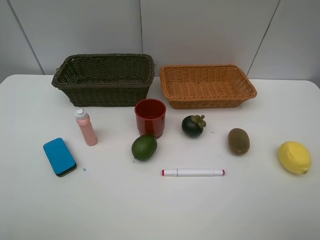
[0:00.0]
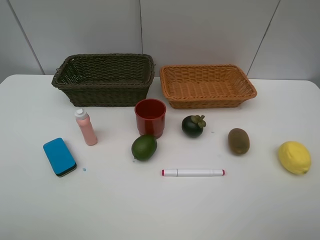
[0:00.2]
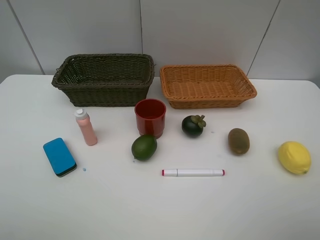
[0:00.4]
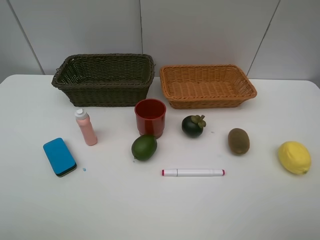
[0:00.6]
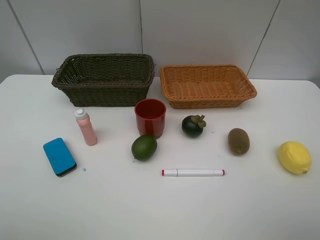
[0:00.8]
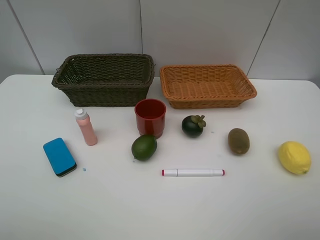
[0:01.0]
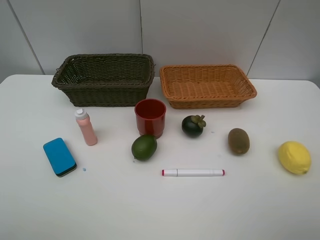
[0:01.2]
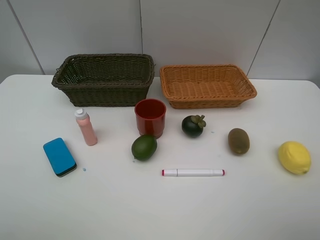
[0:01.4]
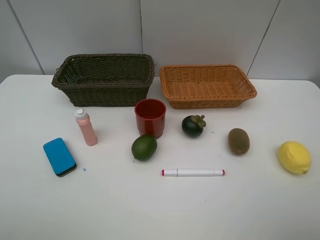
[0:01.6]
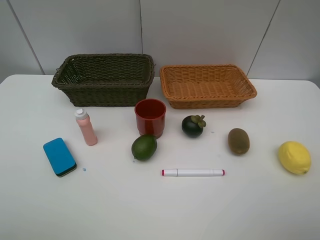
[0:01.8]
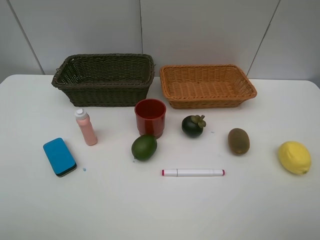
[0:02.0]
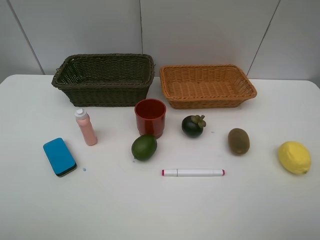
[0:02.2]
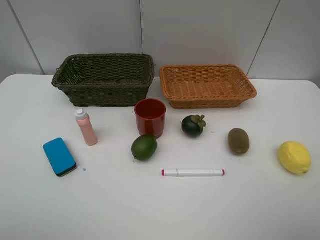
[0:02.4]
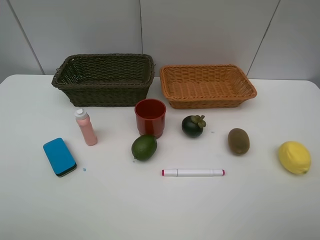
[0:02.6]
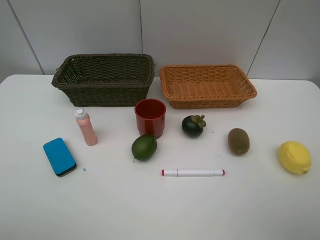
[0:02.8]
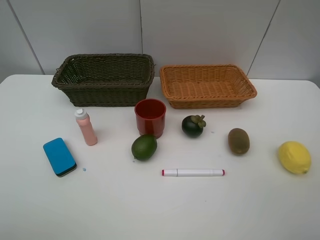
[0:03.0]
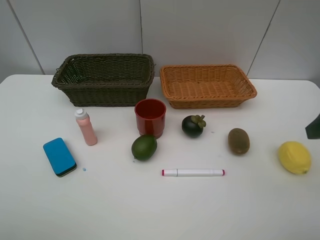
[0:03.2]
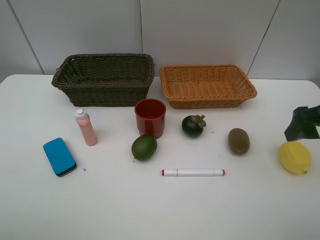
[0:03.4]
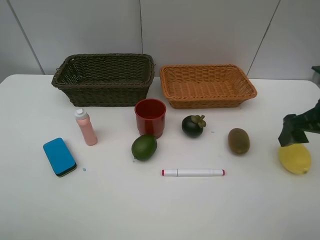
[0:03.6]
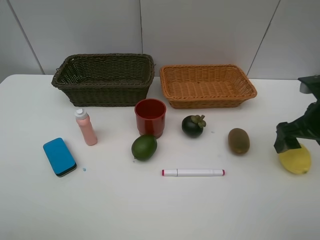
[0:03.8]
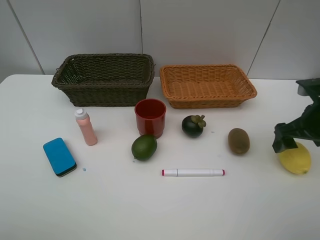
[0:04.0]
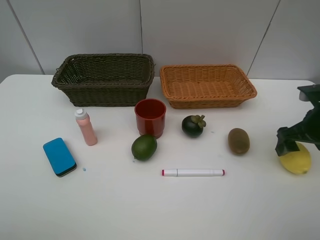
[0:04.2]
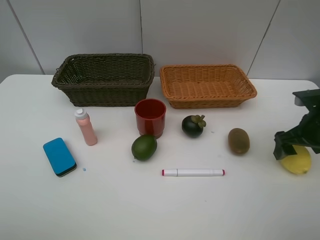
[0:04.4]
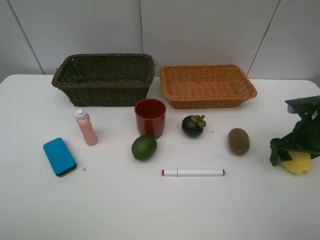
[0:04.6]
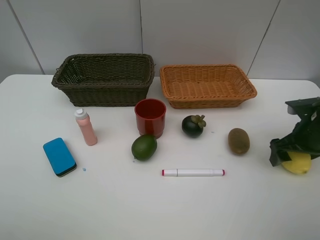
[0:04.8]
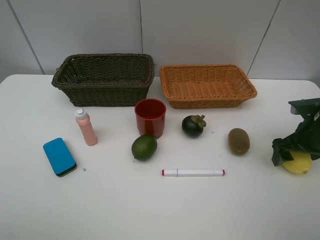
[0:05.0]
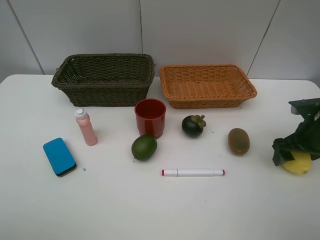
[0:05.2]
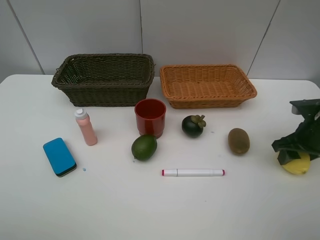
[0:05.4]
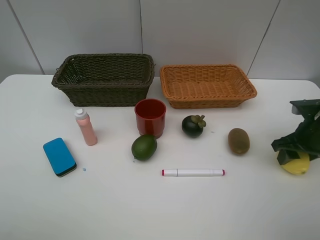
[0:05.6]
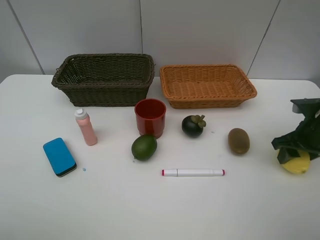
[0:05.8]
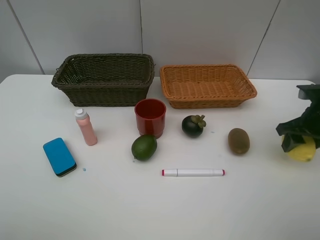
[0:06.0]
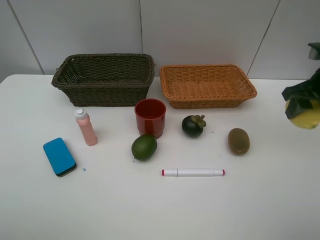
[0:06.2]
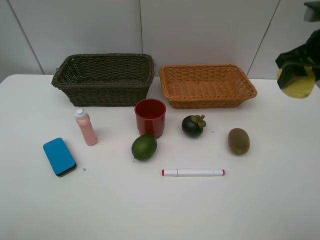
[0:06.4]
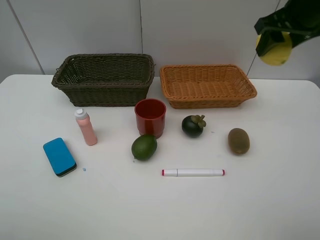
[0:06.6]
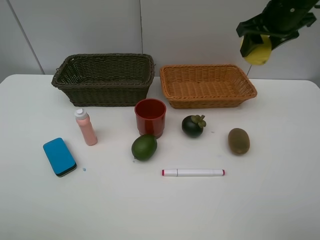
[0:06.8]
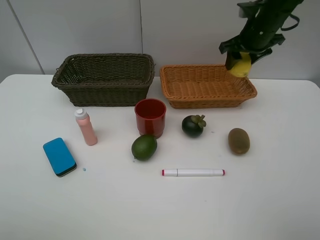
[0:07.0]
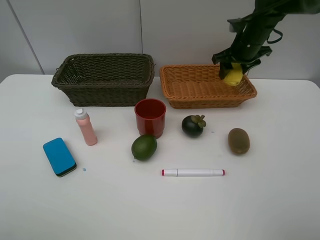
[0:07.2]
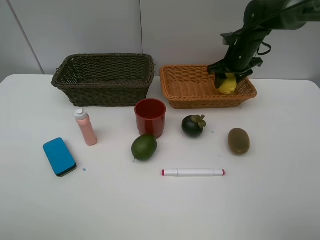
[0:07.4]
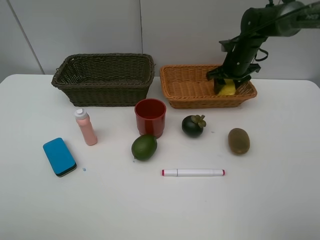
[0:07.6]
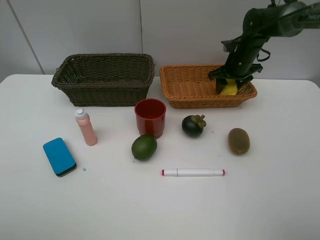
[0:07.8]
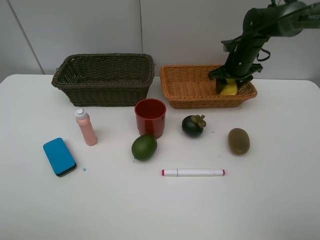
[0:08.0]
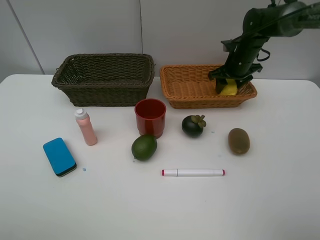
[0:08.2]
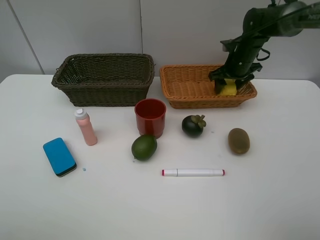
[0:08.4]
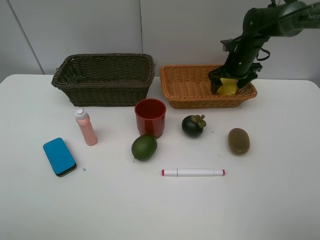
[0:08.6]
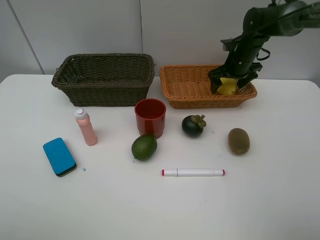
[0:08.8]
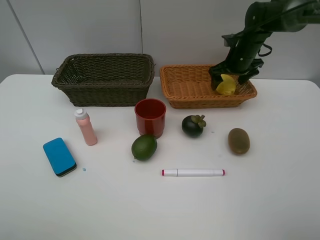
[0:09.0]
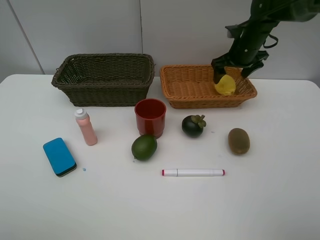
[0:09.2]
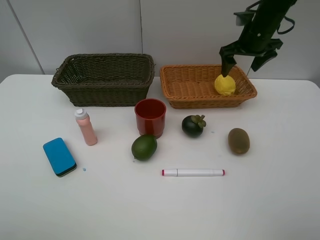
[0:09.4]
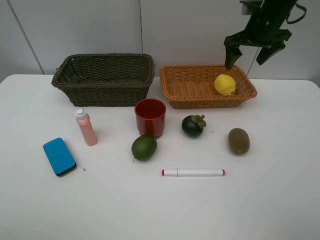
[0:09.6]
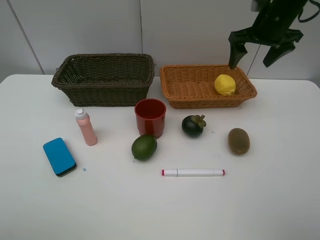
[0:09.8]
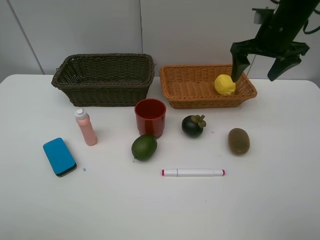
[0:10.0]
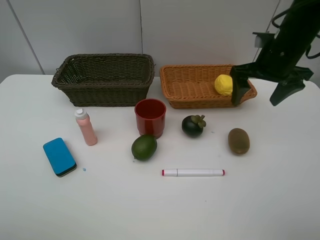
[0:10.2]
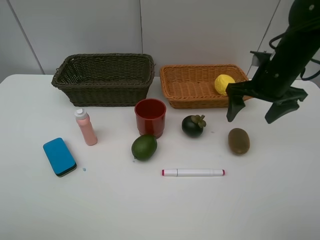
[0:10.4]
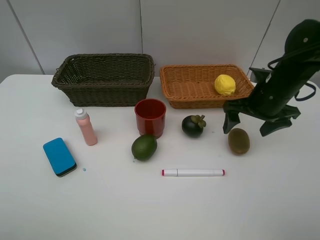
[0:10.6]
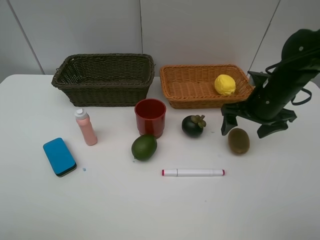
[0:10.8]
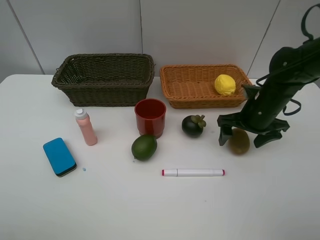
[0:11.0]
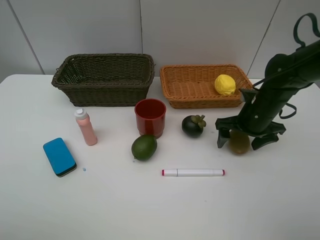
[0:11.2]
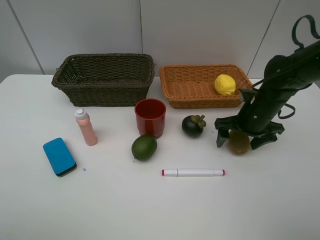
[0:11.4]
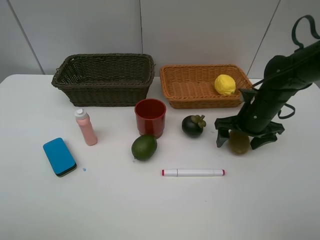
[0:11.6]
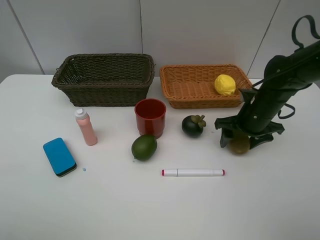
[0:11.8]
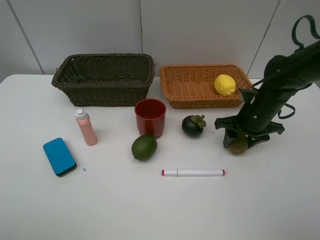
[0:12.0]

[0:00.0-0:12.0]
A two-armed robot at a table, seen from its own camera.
Task of the whole recording: Place multiple objects separately in different baskets.
Step, 0:00.0 to 0:06.0: Pick up the lemon with right gripper.
Step, 0:06.2 to 0:09.2: Place the lemon in the light basket with right gripper.
0:00.0 to 0:01.6: Both grippers stay about where they are.
0:03.0 to 0:04.4: The right gripper moves downward and forward, approximately 20 cm.
0:04.4 to 0:06.0: The right gripper closes.
0:06.0 to 0:07.6: The right gripper travels forward and to the left by roughly 25 cm.
0:07.6 to 0:09.0: The right gripper opens its fingers.
0:09.0 to 0:10.4: The right gripper heads backward, covering roughly 15 cm.
0:10.4 to 0:12.0: The right gripper travels downward by some 10 cm, and closes up.

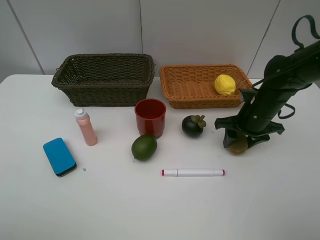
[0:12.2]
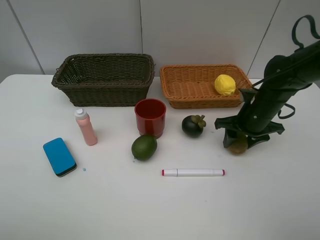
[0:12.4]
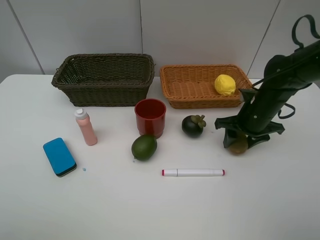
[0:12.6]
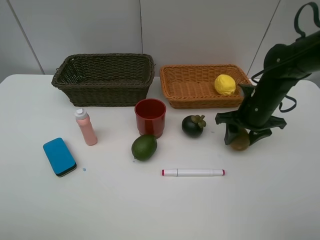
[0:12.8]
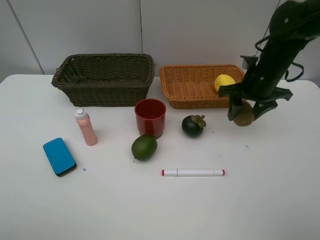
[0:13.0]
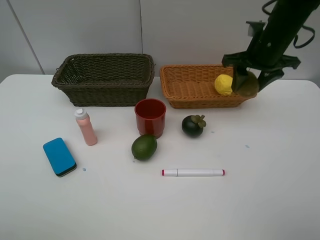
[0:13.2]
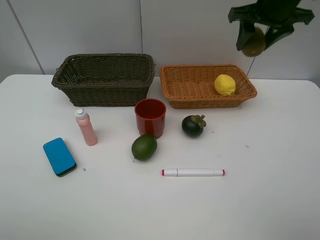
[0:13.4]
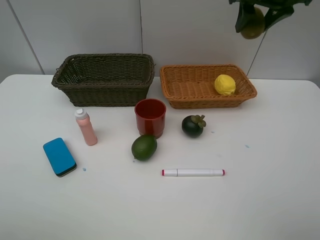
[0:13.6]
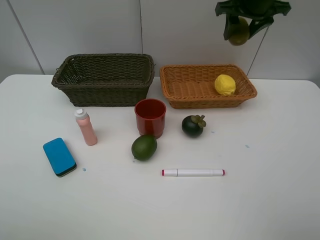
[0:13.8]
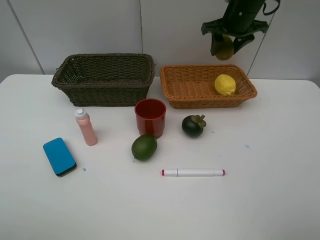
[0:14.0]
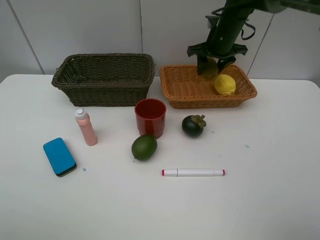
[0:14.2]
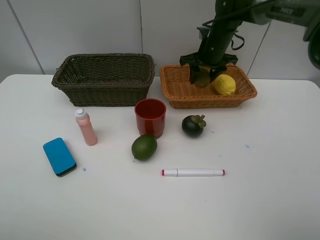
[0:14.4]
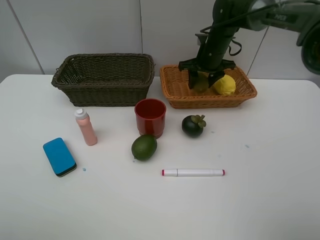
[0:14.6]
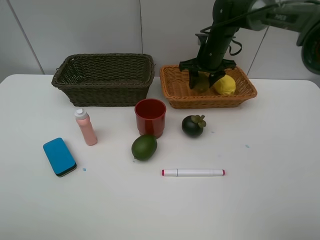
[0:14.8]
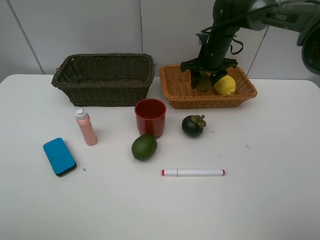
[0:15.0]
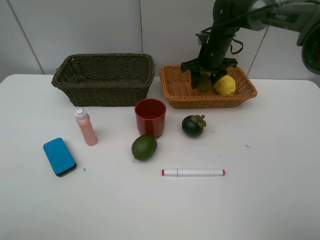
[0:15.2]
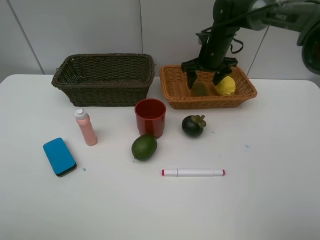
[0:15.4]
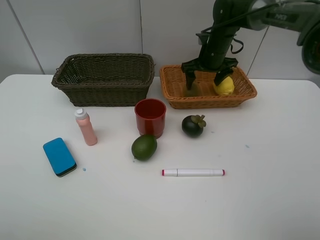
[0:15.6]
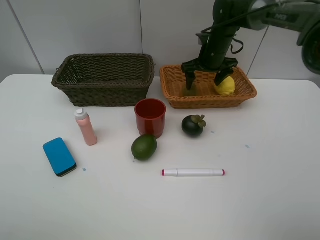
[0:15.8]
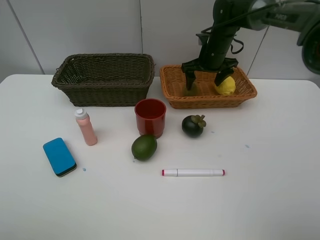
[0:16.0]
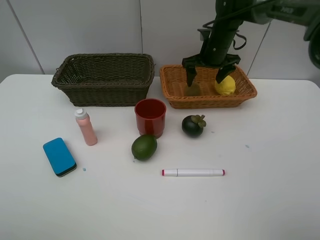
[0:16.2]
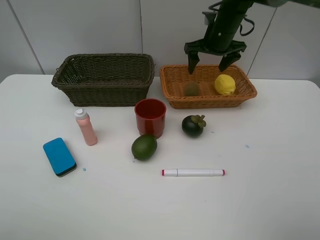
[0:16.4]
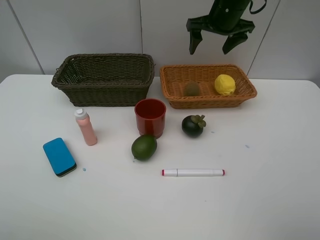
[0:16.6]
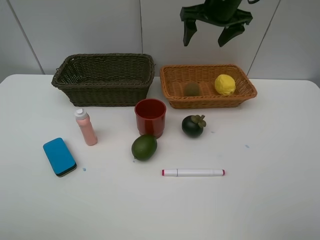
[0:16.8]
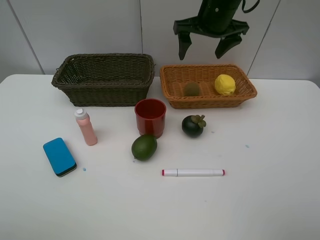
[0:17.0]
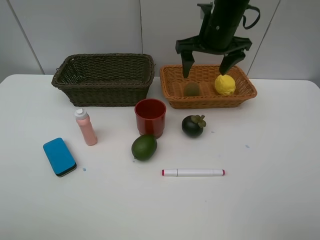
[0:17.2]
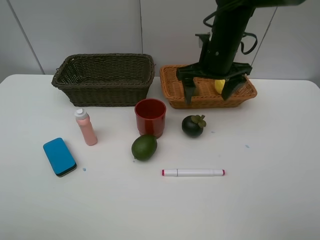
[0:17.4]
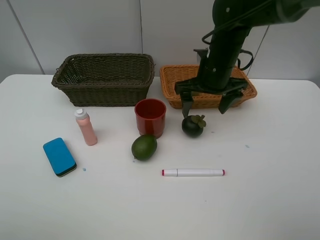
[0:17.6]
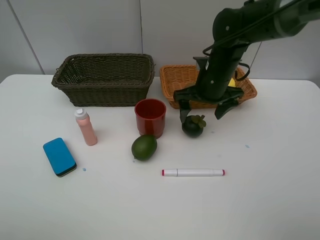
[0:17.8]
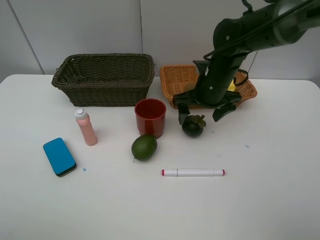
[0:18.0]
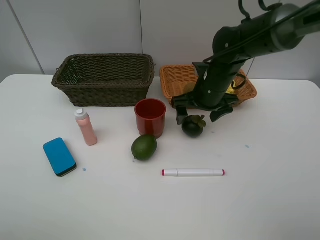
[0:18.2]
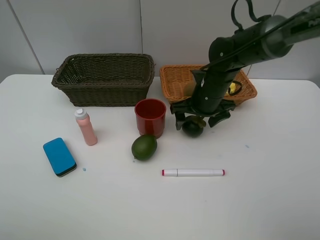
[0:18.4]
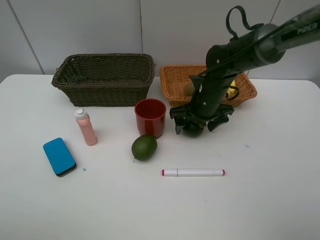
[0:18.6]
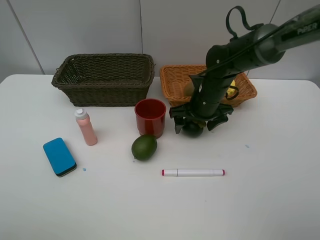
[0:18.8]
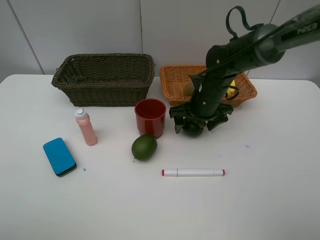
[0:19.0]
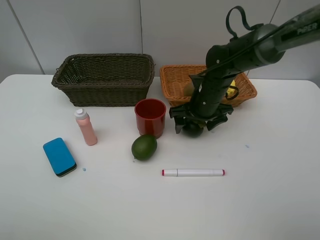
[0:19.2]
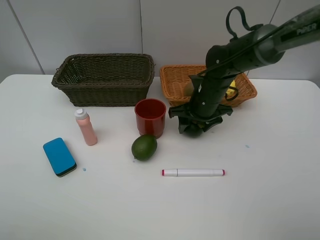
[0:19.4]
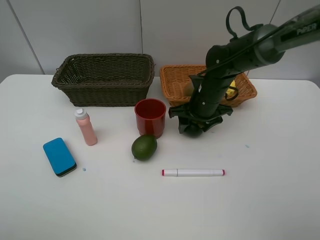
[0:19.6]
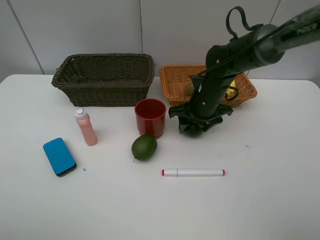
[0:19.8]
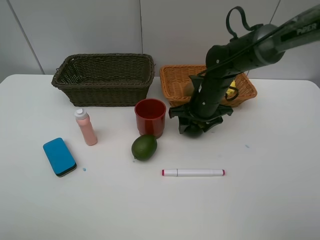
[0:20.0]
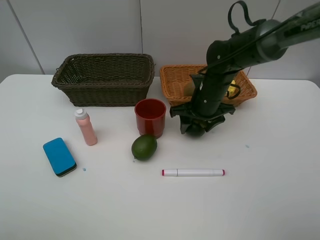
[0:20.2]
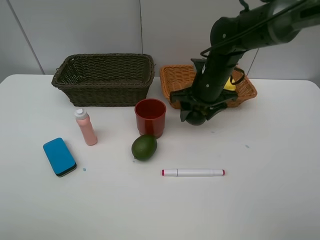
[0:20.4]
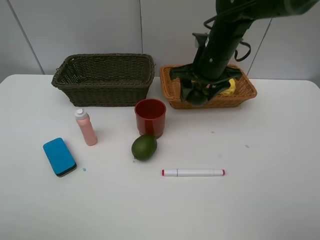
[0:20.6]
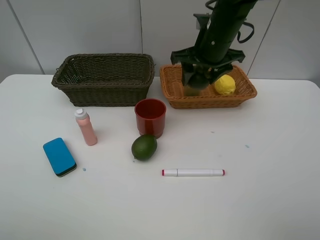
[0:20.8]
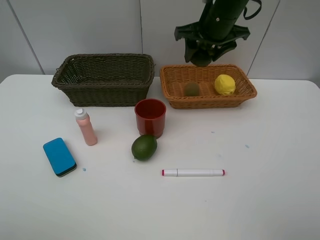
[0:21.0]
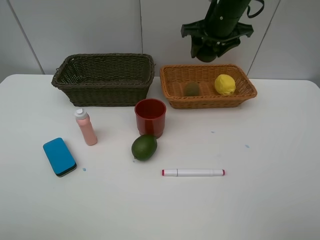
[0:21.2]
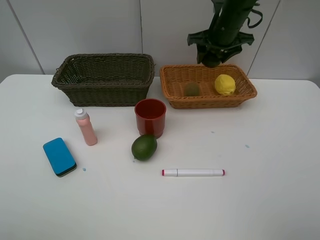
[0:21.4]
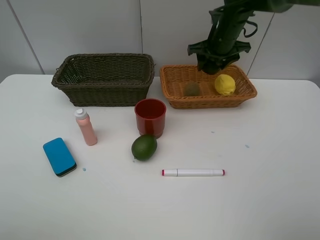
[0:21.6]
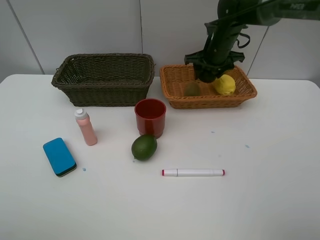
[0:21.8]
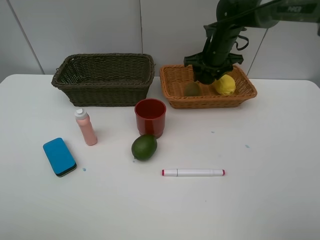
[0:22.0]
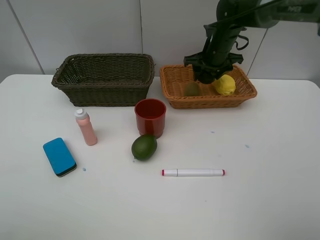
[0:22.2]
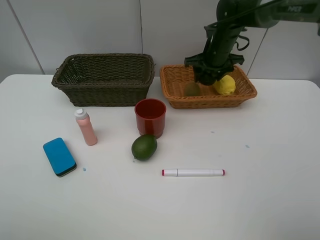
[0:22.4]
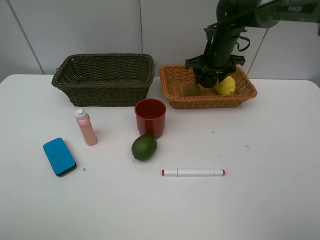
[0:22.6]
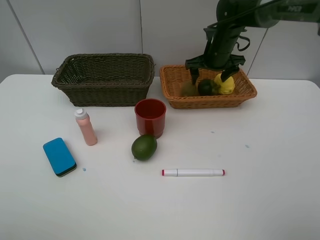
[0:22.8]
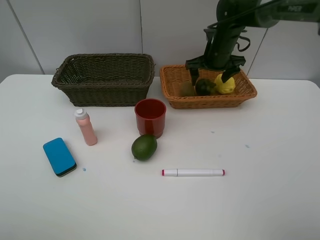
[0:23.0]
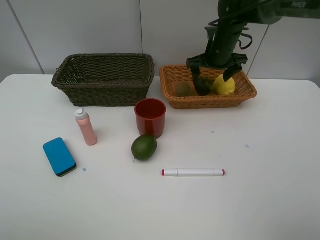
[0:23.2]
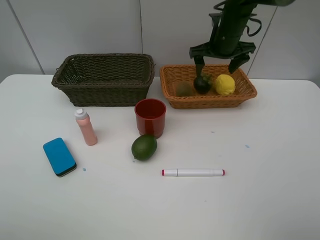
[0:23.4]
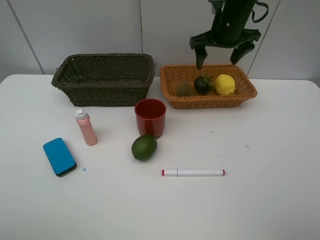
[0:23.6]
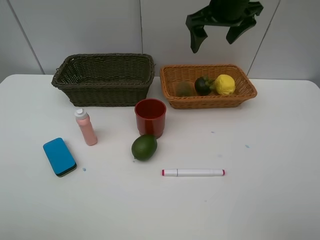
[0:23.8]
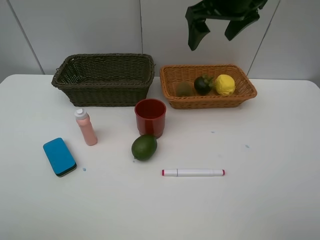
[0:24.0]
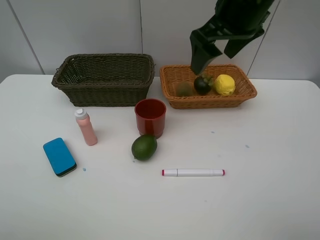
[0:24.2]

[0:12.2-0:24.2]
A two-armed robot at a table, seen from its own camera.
Task of the whole recording: Place multiple objects separately in different baskets.
Step, 0:13.0 to 0:15.8: Place the kiwi in the light basket with right gripper.
Step, 0:16.0 to 0:20.2: Pick up the mangosteen with right gripper.
Step, 0:20.4 to 0:23.2: Place the mangosteen in the light basket with right gripper.
0:12.2 to 0:13.8: The right gripper is displaced upward and forward by about 25 cm.
0:13.8 to 0:15.2: The right gripper moves downward and to the left, about 15 cm.
0:15.2 to 0:16.6: The right gripper moves upward, some 10 cm, and opens up.
0:16.6 to 0:18.2: The right gripper travels downward and backward by approximately 15 cm.
0:18.2 to 0:19.8: There are only small adjustments of the grippers.
0:19.8 to 0:21.2: The right gripper is displaced upward and forward by roughly 15 cm.
0:21.2 to 0:22.6: The right gripper shifts some 10 cm downward.
0:22.6 to 0:24.2: The right gripper moves backward and upward, approximately 25 cm.
